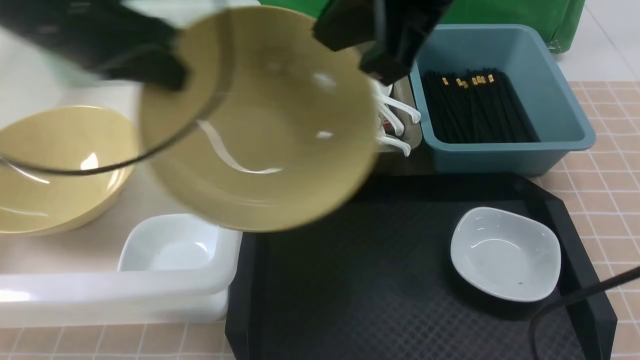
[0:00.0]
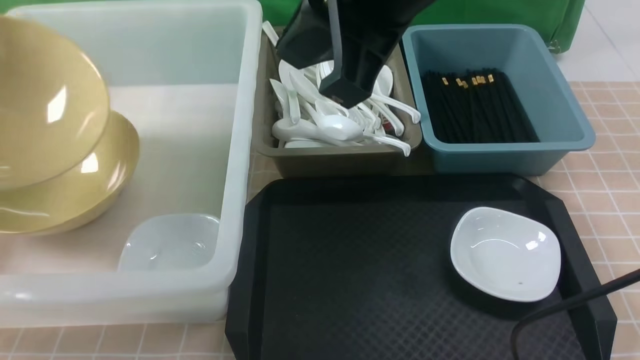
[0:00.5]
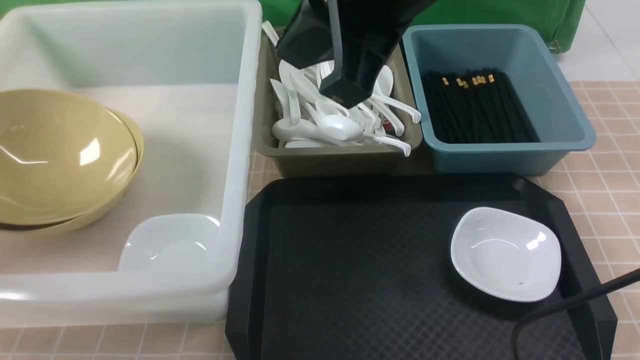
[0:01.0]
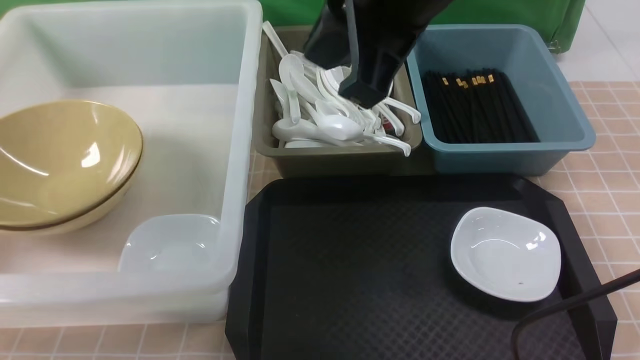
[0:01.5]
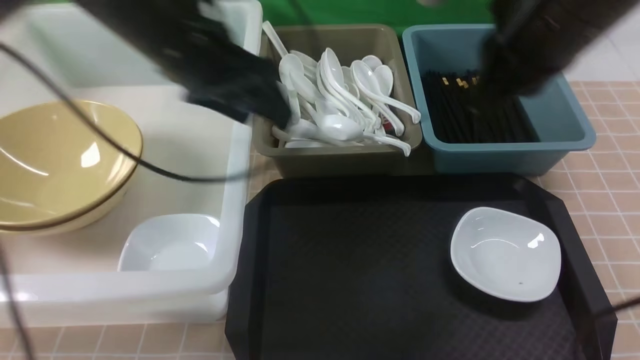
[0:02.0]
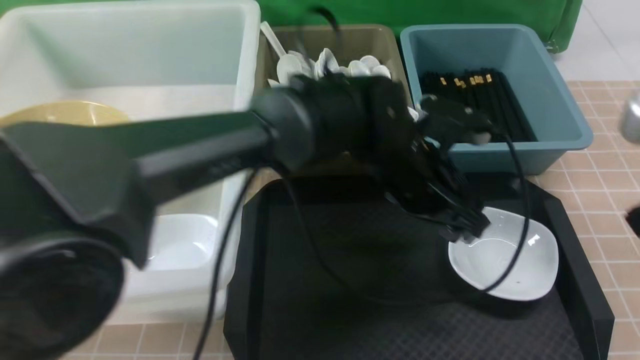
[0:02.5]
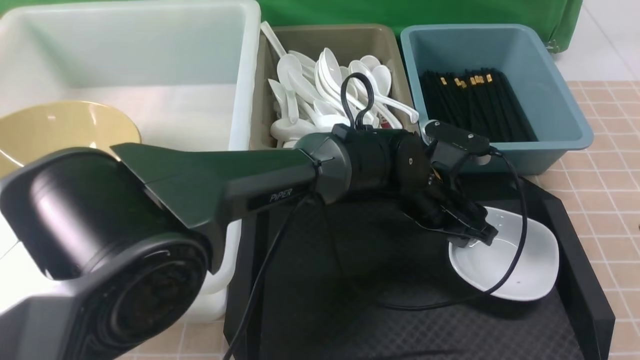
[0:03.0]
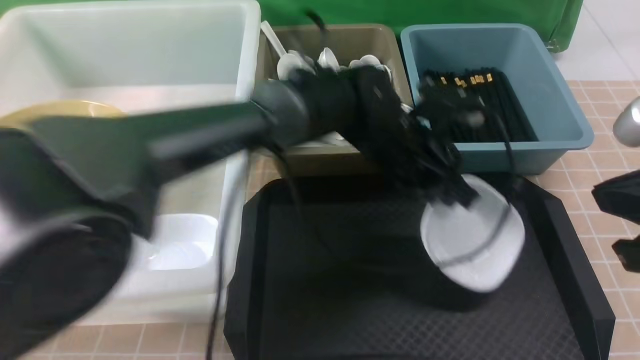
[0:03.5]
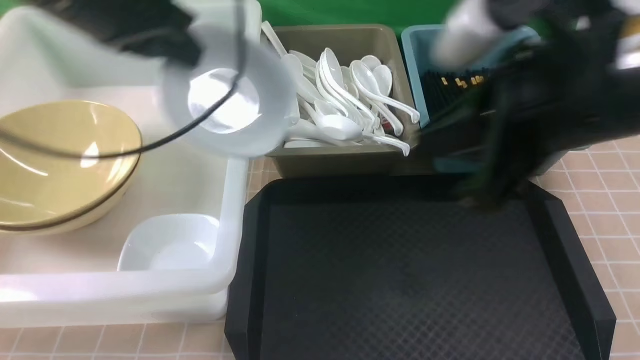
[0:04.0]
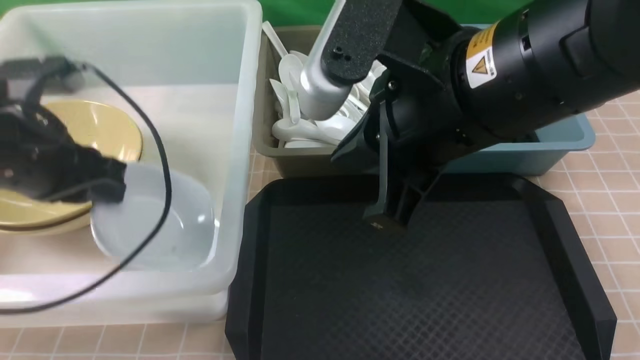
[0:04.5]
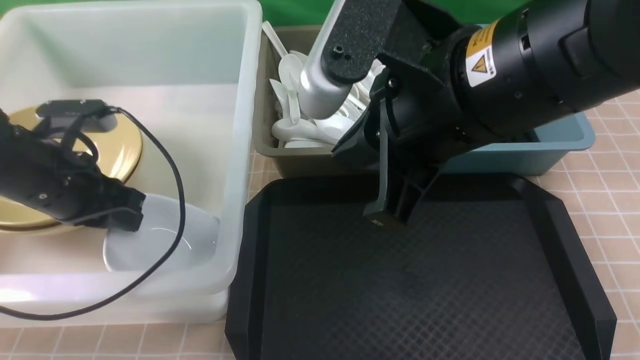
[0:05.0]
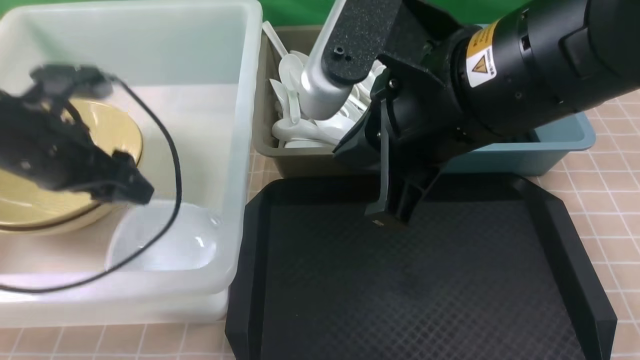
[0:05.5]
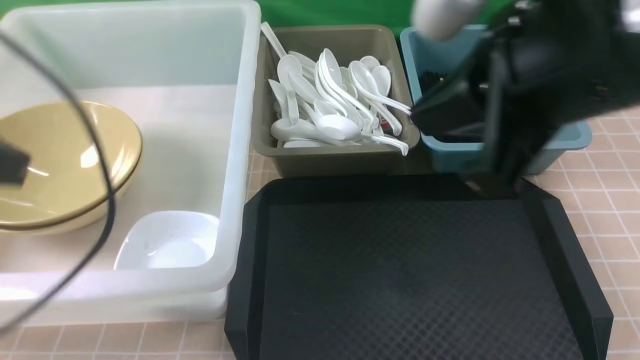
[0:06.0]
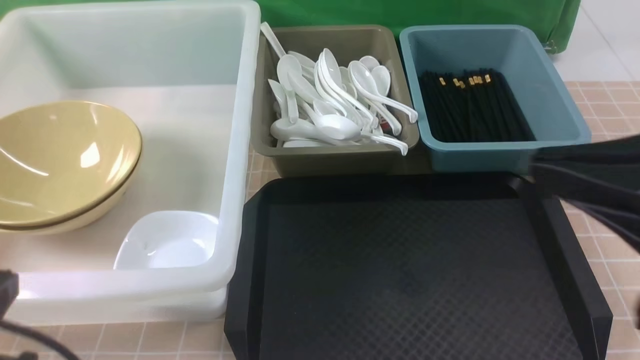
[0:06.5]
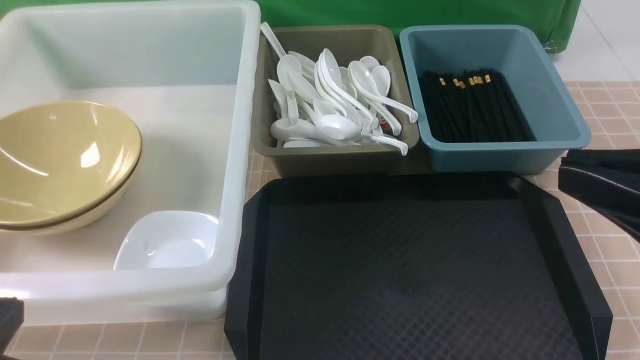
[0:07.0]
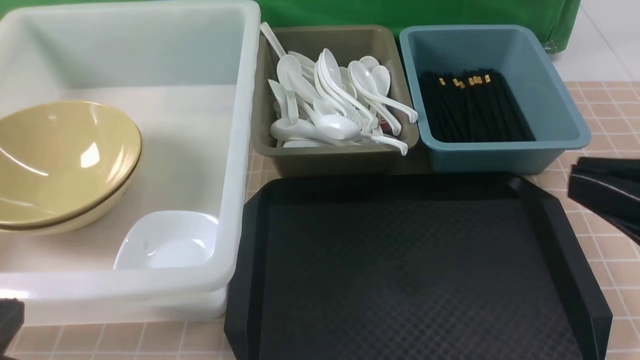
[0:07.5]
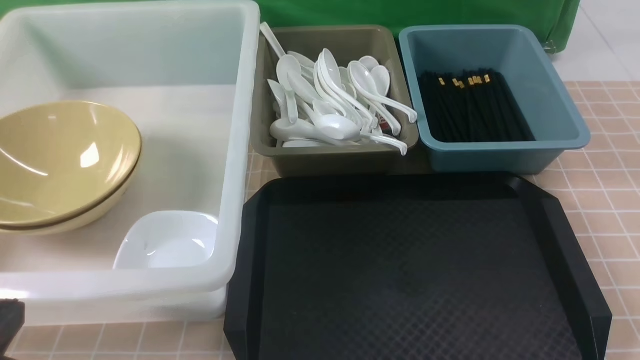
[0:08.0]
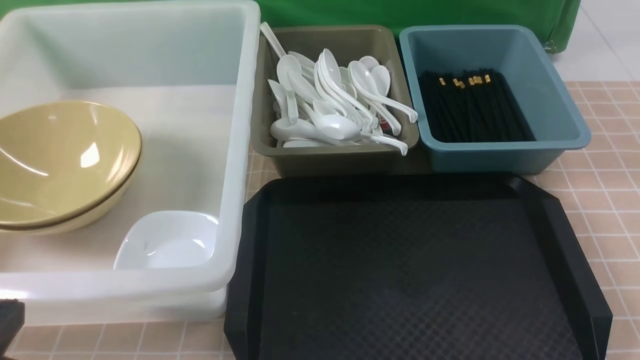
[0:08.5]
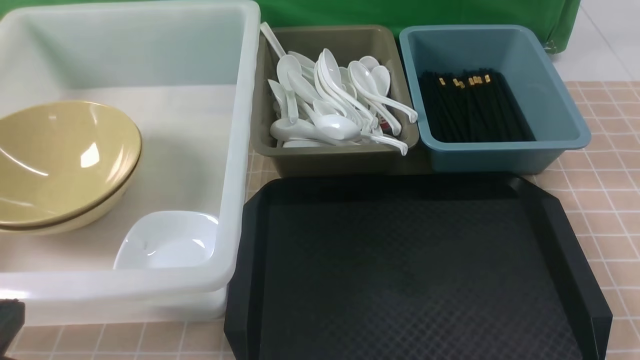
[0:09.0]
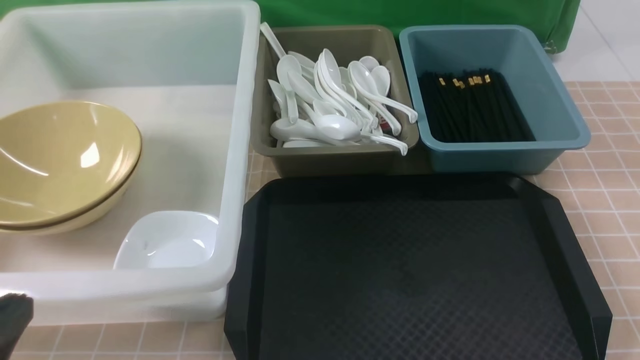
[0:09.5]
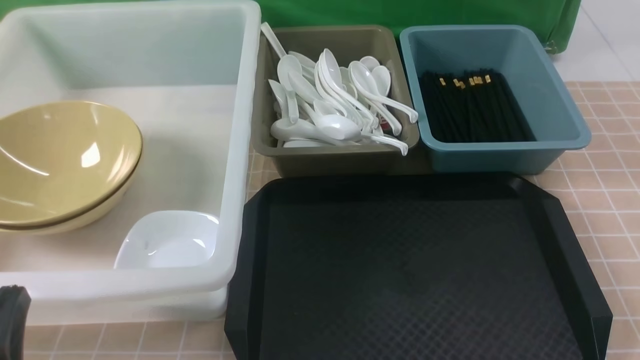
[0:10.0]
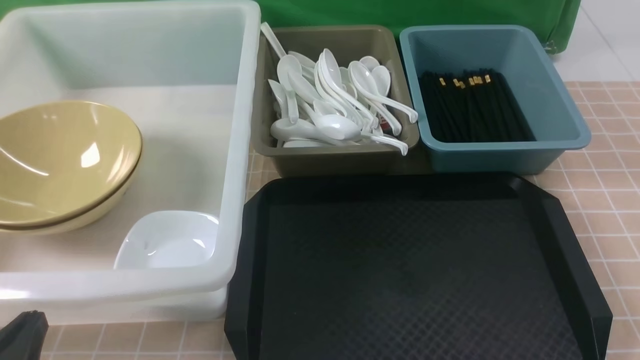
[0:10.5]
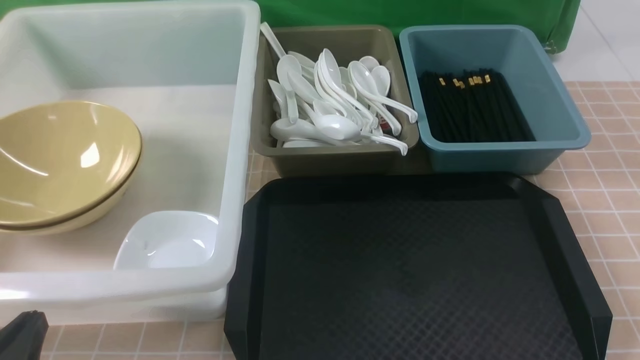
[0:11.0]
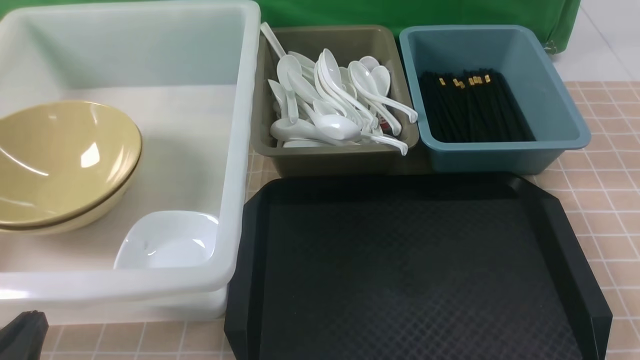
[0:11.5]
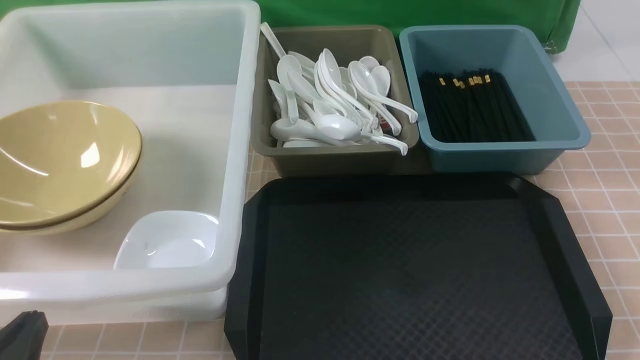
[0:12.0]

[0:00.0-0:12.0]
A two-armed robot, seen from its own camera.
Task of the whole recording: on brown table put chopsticks spoon bowls plates into blue grey white boxes.
Step, 0:00.0 to 0:01.0: use the left arm to put the noodle bowl into the large storage box on the left.
Step, 0:01.5 to 0:03.0: use the left arm to grab the plate.
Step, 0:03.5 to 0:05.0: use the left arm to put the plate into the large storage box on the left.
0:00.0 to 0:02.0: The right gripper heads to the right and downward, covering roughly 10 cm. Meanwhile the left gripper shifts roughly 15 cm to the right and forward, and opens its fingers.
0:02.0 to 0:04.0: The right gripper shifts some 5 cm backward. The left gripper travels to the right and back again, about 20 cm each way, and closes its fingers.
0:04.0 to 0:06.0: The left gripper is displaced backward by about 15 cm, and opens, then closes again.
0:06.0 to 0:08.0: The right gripper goes some 25 cm downward, to the right and backward. Meanwhile the left gripper travels backward and downward by approximately 15 cm.

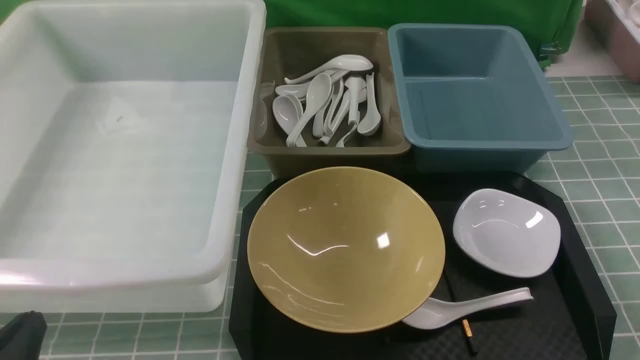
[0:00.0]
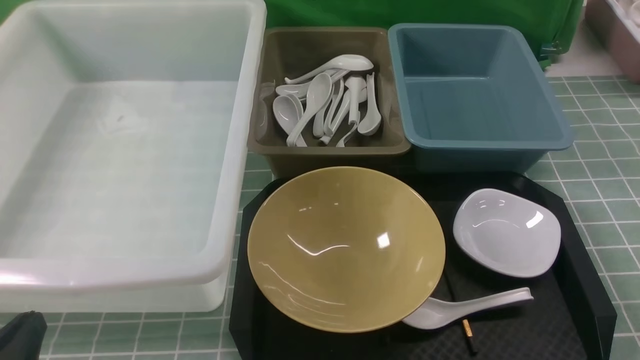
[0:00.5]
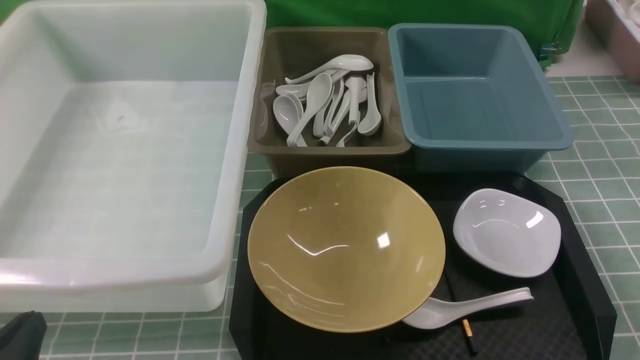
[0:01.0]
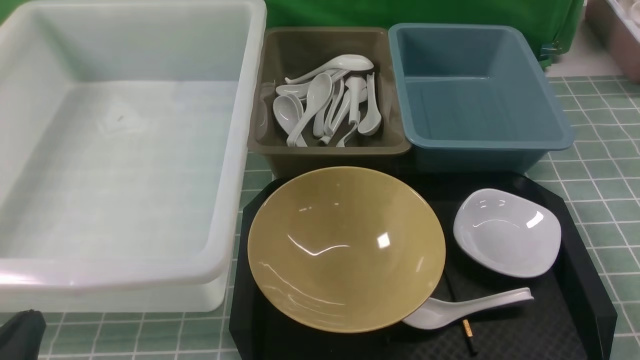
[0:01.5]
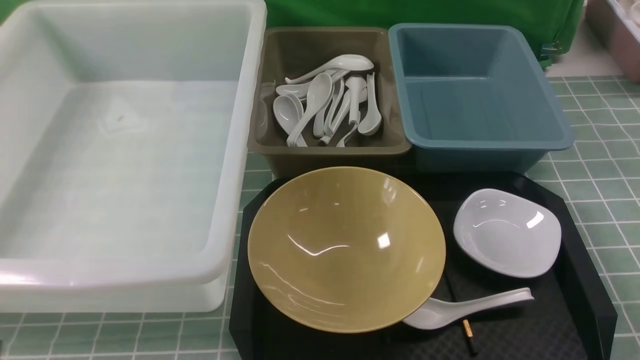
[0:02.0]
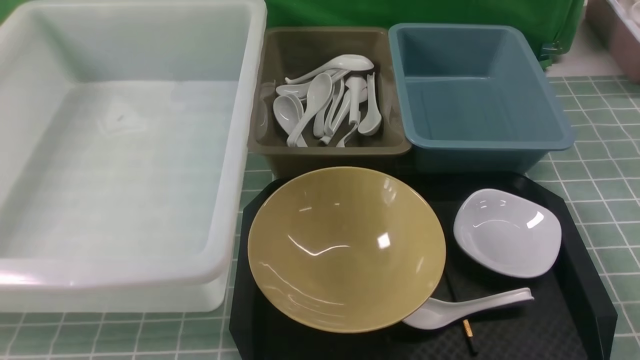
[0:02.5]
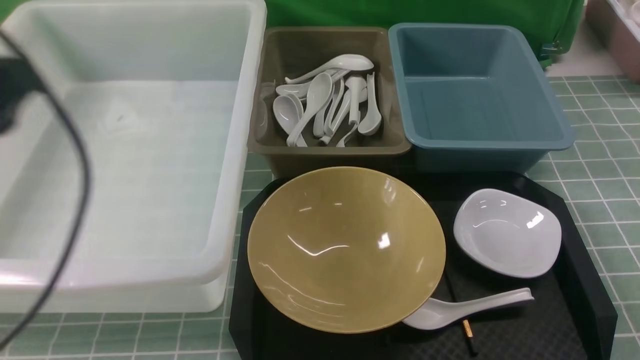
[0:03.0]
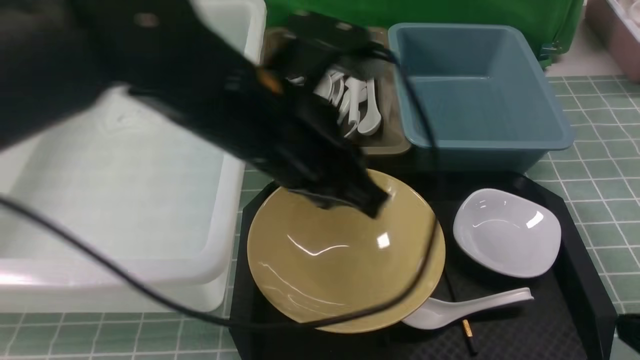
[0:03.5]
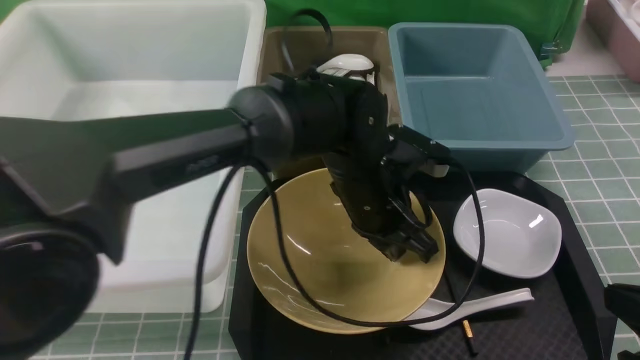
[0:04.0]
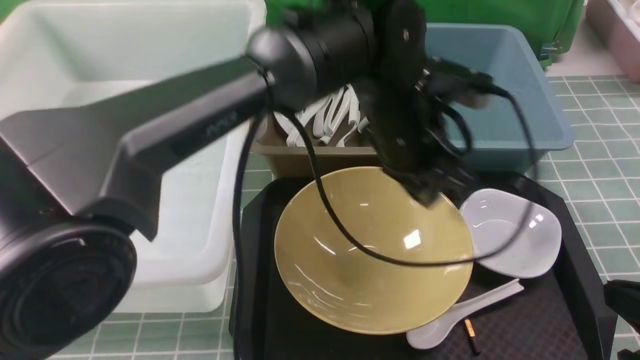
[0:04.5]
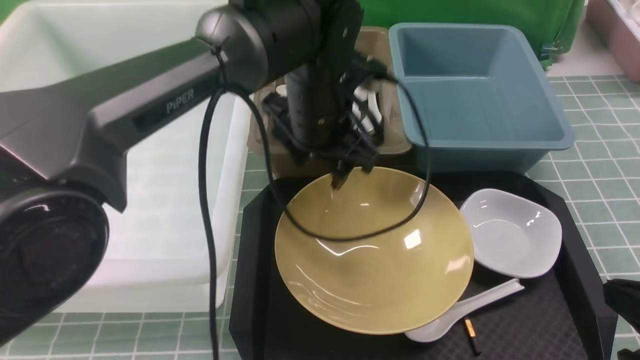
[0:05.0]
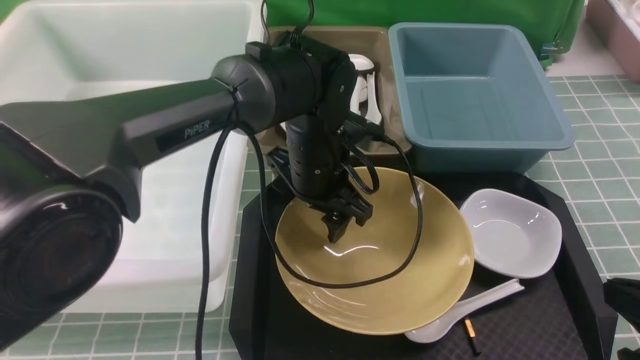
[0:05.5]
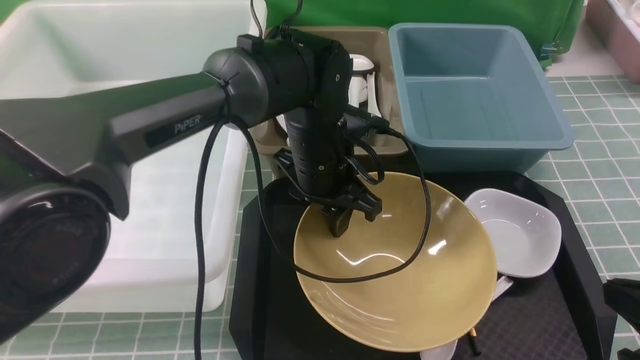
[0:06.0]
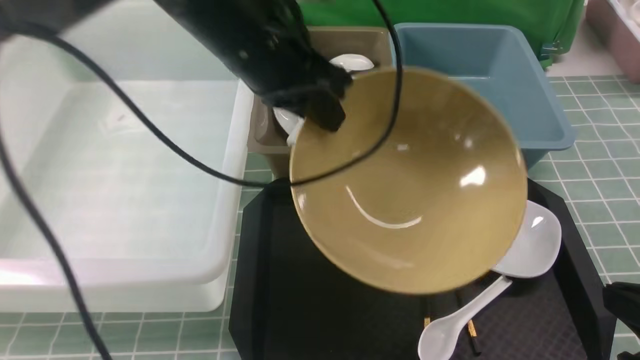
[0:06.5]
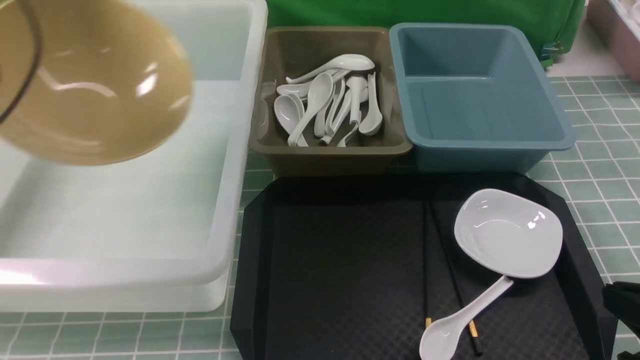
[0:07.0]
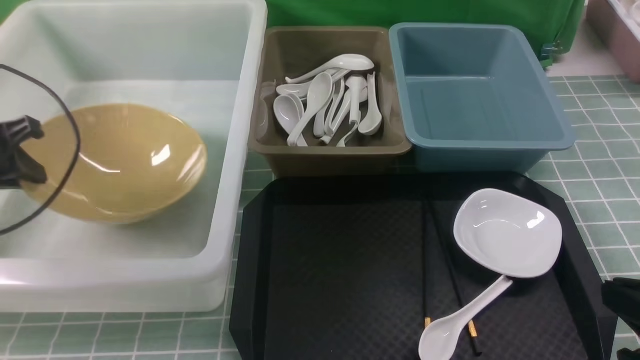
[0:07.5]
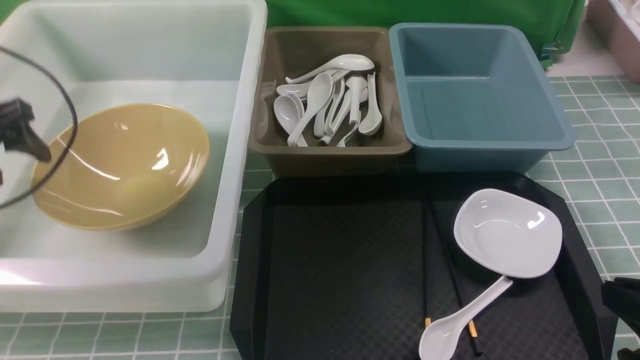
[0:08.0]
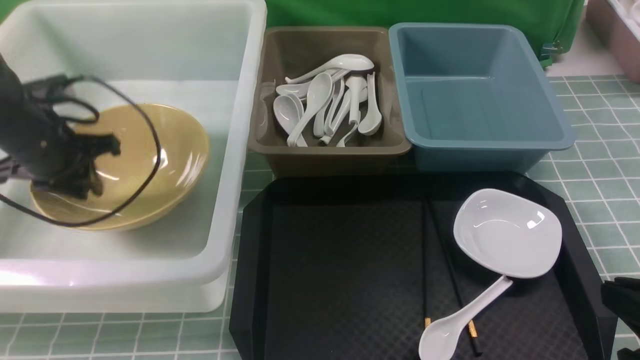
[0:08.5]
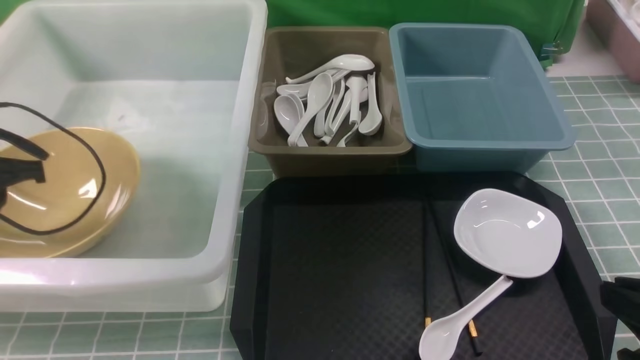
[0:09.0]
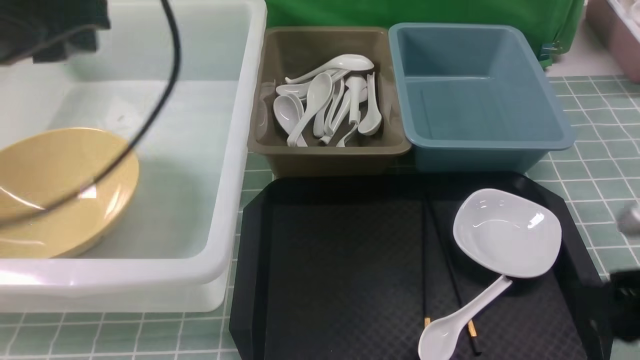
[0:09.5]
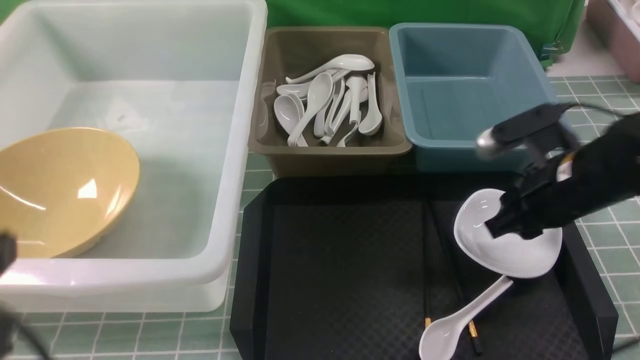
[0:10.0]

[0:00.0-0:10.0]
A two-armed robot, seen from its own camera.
Task of the whole recording: on blue table put chopsticks spoon bowls plates into blue grey white boxes.
Step, 0:00.0 to 0:06.0: use the left arm to grab the yellow noodle bowl on the left.
Step, 0:06.5 to 0:07.5: use the left arm to put the noodle bowl into the large storage box on the left.
0:00.0 to 0:02.0: The left gripper heads upward, covering about 5 cm.
0:02.0 to 0:04.0: The right gripper is displaced forward by approximately 5 cm, and moves about 10 cm upward and comes back. Meanwhile the left gripper shifts some 40 cm to the right and forward.
0:04.0 to 0:06.0: The left gripper heads to the left, covering about 5 cm, and opens and closes again.
0:06.0 to 0:08.0: The left gripper goes approximately 35 cm to the left, and opens up.
0:08.0 to 0:10.0: The right gripper shifts approximately 20 cm forward, and opens, then closes once more, while the left gripper travels backward and to the right by about 30 cm, and closes its fingers.
